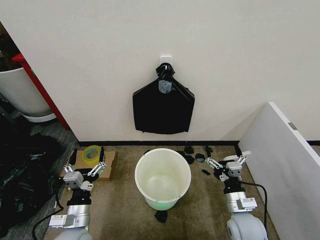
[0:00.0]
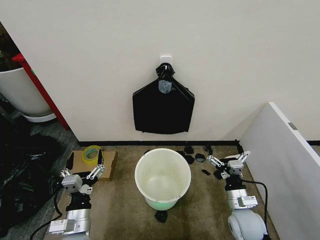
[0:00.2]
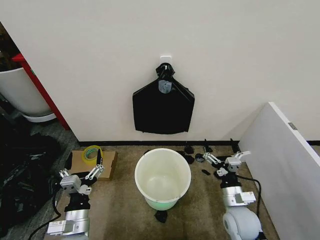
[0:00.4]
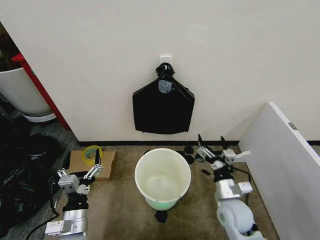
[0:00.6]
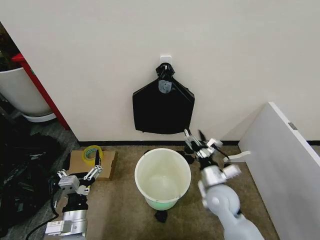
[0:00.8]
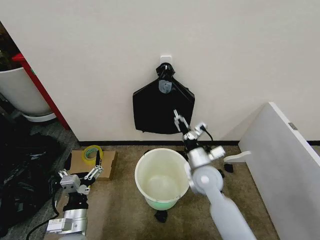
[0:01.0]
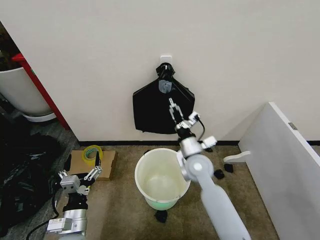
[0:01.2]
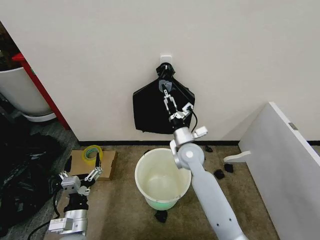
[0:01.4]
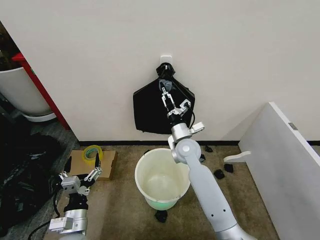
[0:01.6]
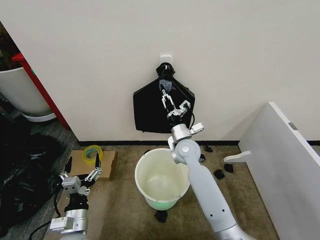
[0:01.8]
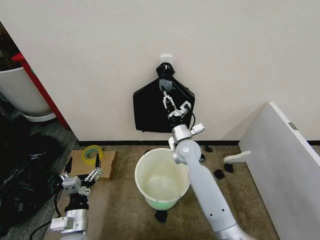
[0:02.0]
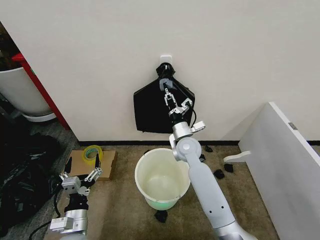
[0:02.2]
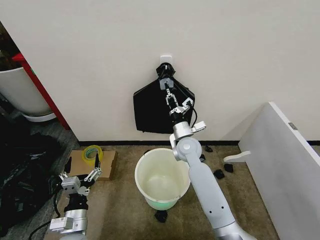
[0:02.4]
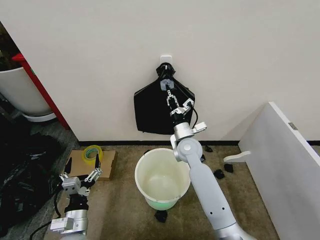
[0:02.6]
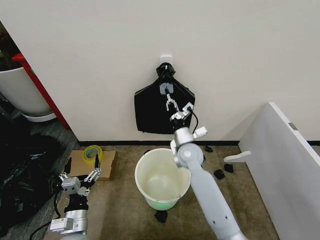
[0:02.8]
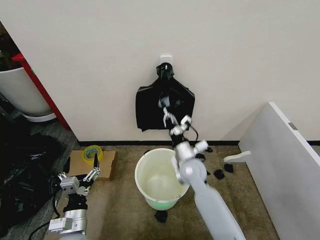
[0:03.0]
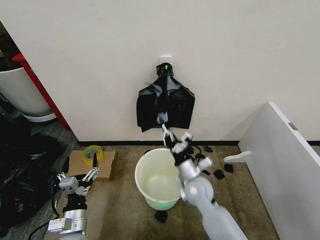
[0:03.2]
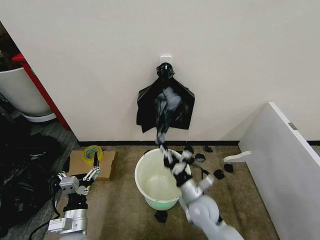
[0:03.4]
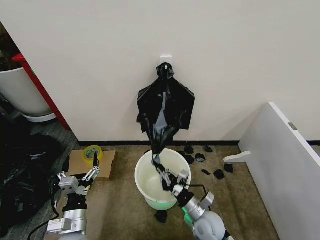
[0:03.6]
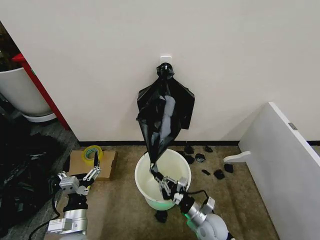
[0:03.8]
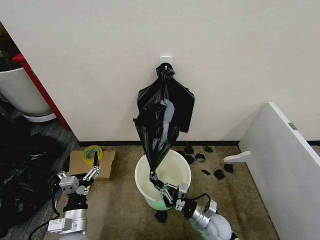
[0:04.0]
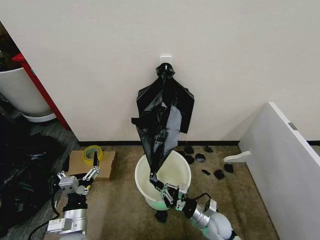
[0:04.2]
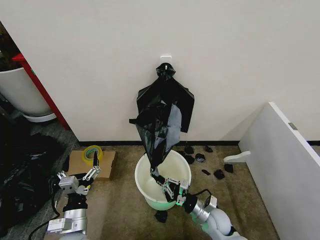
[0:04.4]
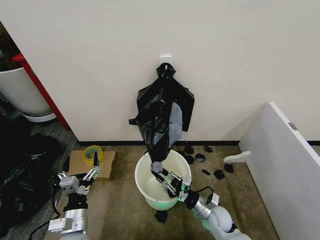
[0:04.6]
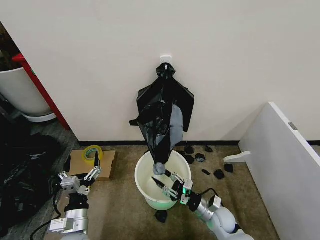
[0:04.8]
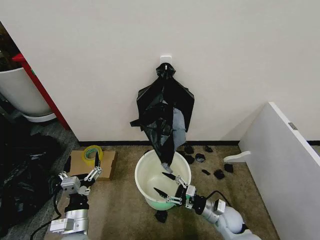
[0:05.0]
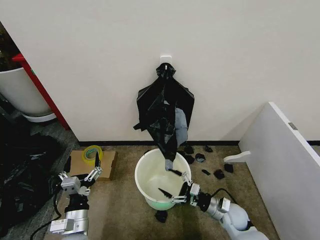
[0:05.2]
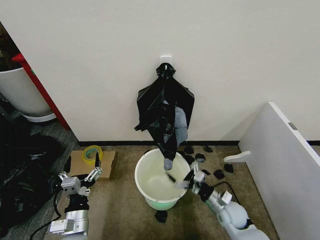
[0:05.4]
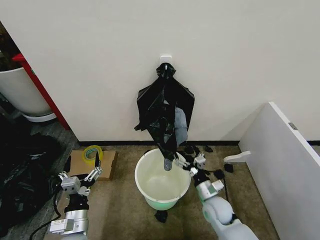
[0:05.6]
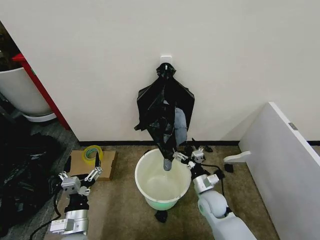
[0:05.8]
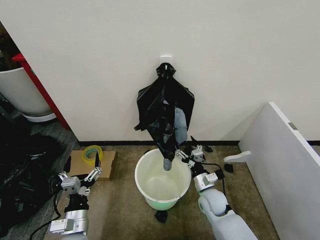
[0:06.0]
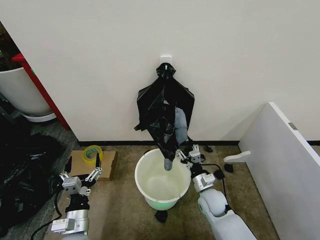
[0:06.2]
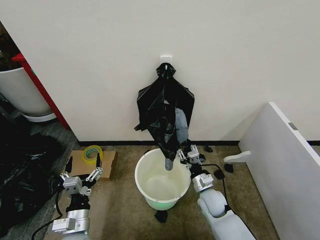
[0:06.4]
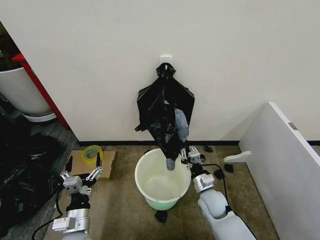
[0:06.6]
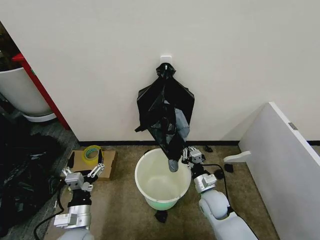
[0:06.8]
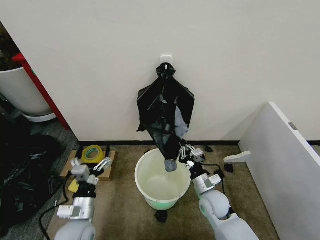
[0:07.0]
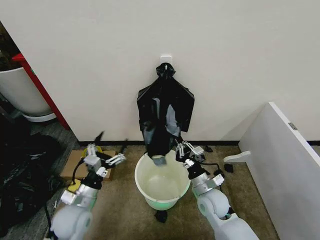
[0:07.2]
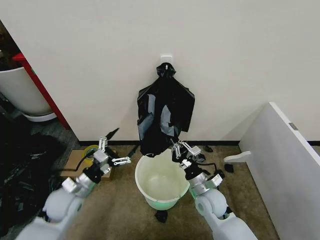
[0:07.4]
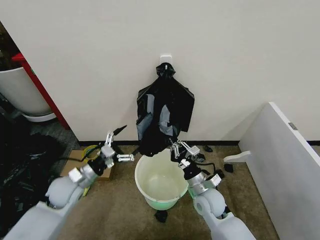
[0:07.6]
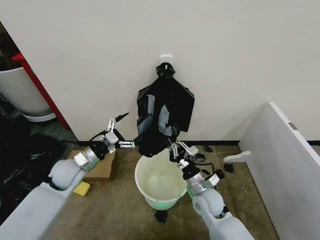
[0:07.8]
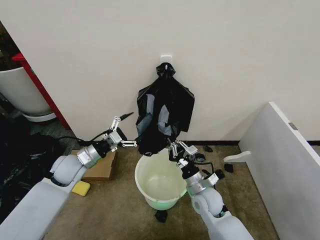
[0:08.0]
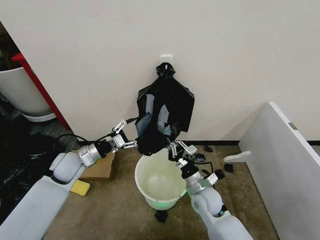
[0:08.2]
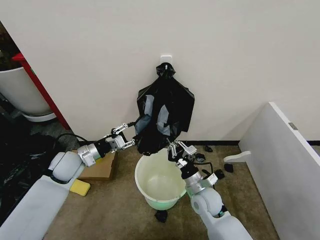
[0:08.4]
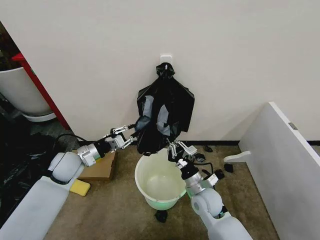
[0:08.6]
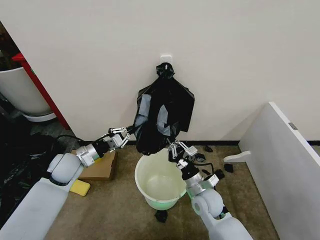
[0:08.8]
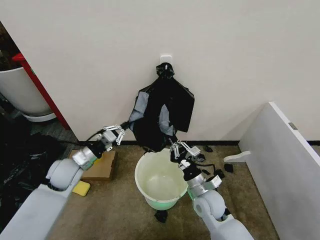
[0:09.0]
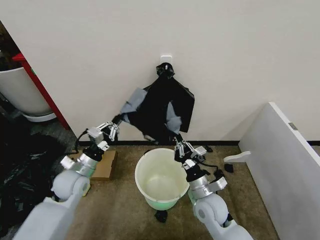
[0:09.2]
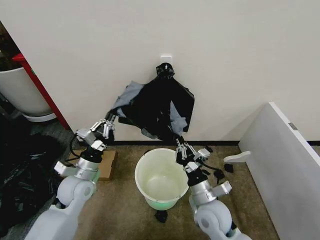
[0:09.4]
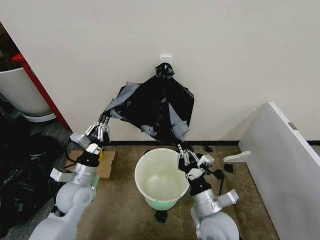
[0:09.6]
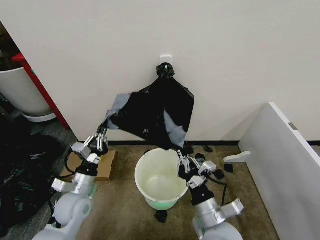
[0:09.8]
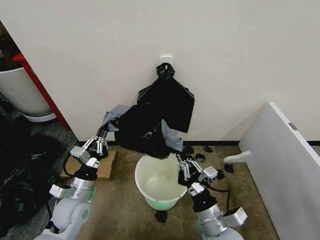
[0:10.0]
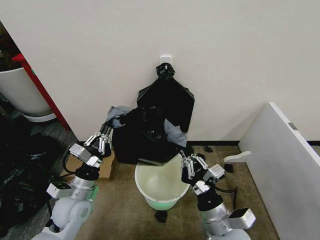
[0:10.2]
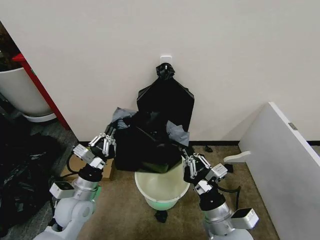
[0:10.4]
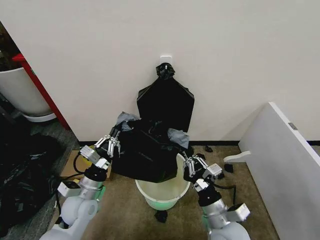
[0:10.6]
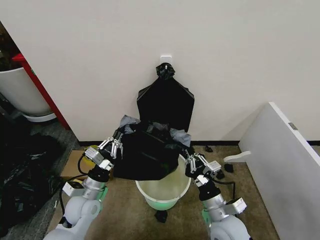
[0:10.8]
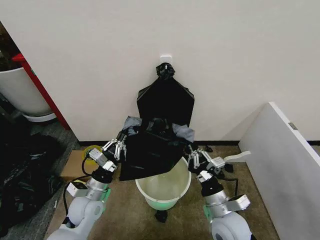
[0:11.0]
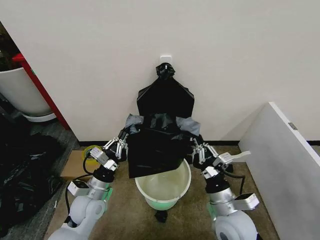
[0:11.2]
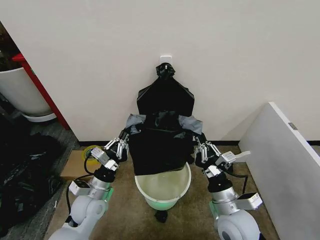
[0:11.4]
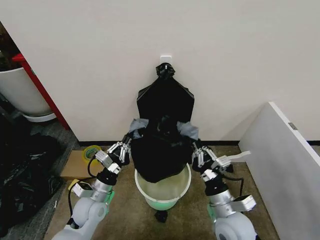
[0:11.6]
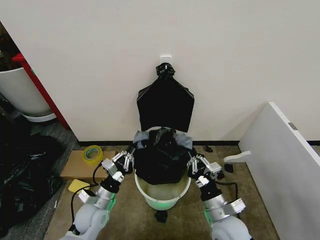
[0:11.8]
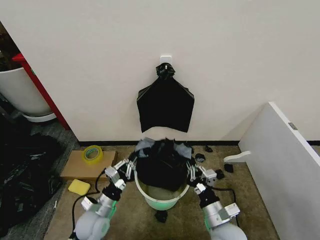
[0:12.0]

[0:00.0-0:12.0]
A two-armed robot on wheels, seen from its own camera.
Task of the whole recording: Place the garbage bag over the trash bin.
0:01.6 to 0:03.0: The right gripper goes about 5 cm backward, and closes.
0:03.0 to 0:04.4: The right gripper shifts roughly 20 cm downward, backward and to the right.
0:04.4 to 0:06.0: The right gripper is displaced forward by roughly 5 cm, goes to the right and returns, roughly 5 cm each way, and opens.
0:06.0 to 0:07.6: The right gripper travels upward by roughly 5 cm, and closes its fingers. Meanwhile the left gripper goes about 15 cm forward.
0:07.6 to 0:09.0: The left gripper changes place by roughly 5 cm, and closes up.
0:09.0 to 0:10.4: The left gripper shifts roughly 10 cm backward and to the right, while the right gripper travels backward and upward by approximately 15 cm.
0:10.4 to 0:12.0: The left gripper heads downward, covering some 10 cm. Meanwhile the right gripper moves up and down over about 10 cm, changing direction 2 times.

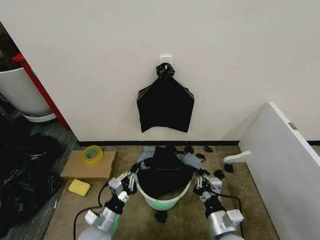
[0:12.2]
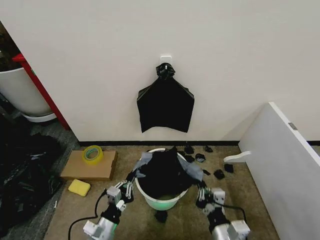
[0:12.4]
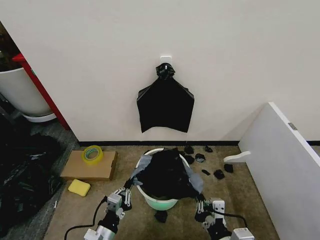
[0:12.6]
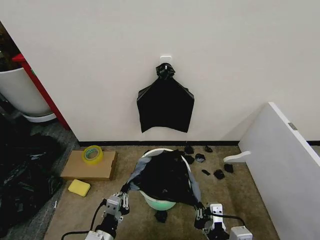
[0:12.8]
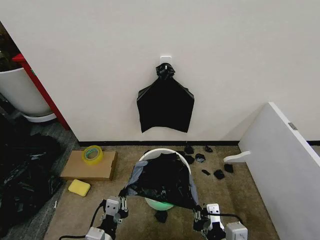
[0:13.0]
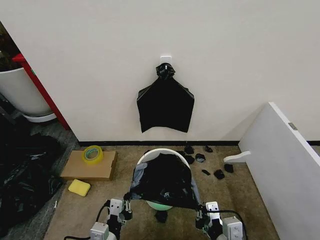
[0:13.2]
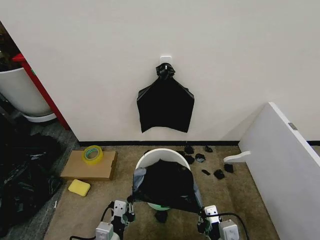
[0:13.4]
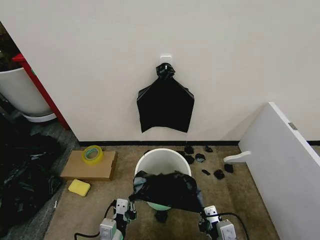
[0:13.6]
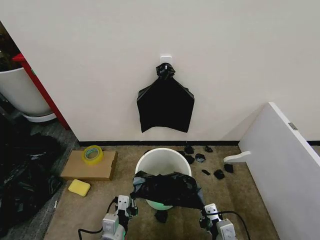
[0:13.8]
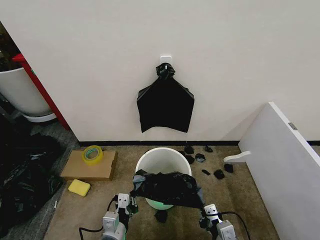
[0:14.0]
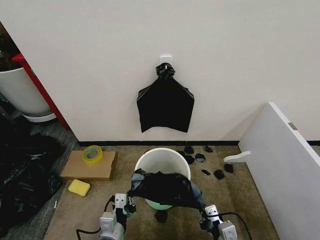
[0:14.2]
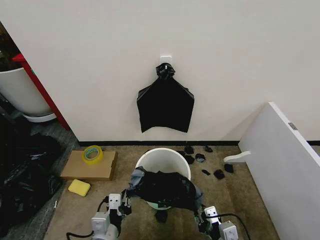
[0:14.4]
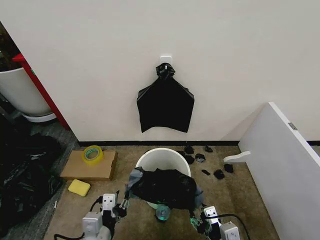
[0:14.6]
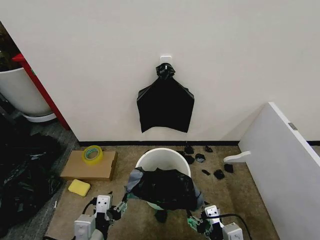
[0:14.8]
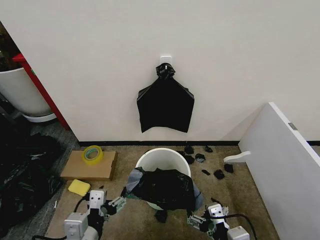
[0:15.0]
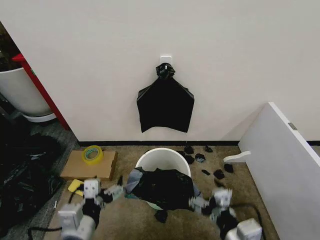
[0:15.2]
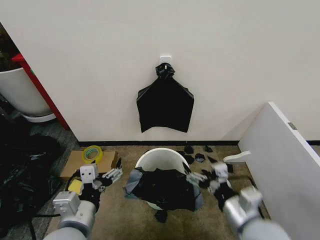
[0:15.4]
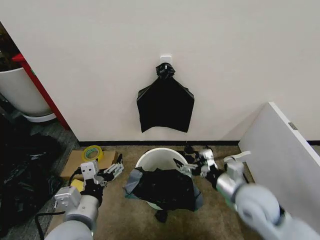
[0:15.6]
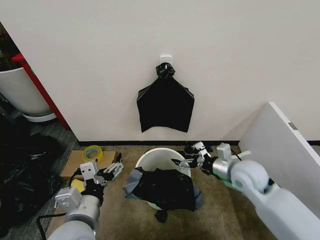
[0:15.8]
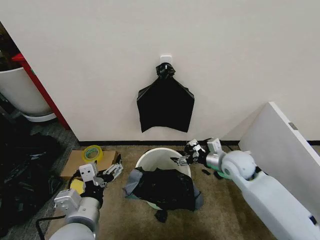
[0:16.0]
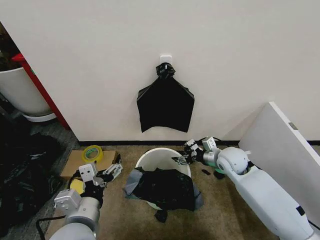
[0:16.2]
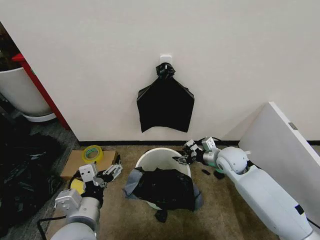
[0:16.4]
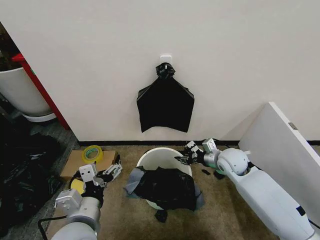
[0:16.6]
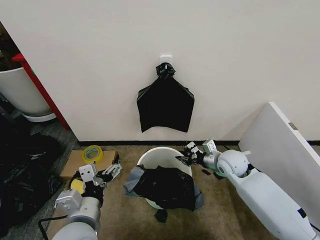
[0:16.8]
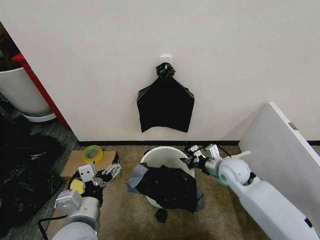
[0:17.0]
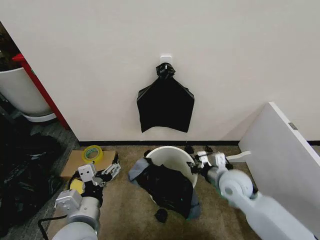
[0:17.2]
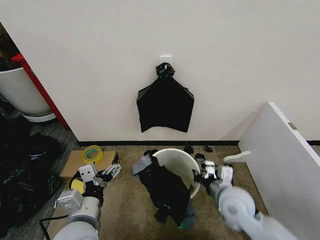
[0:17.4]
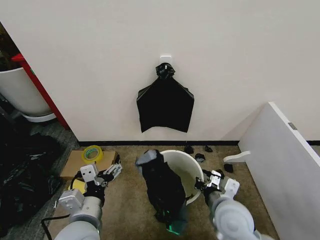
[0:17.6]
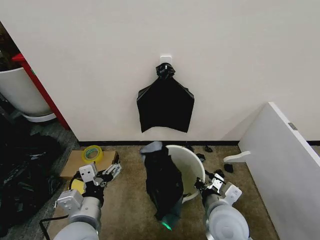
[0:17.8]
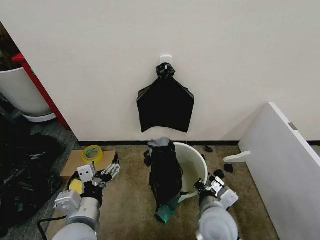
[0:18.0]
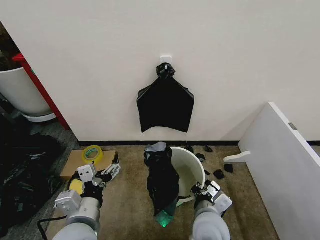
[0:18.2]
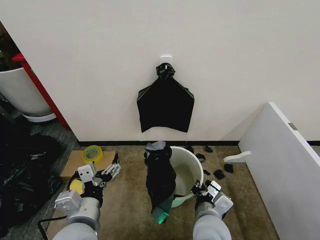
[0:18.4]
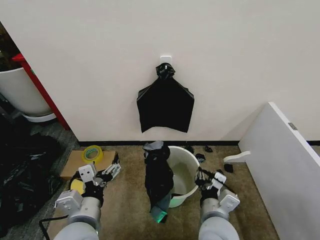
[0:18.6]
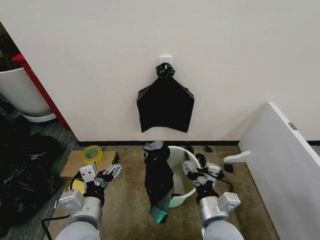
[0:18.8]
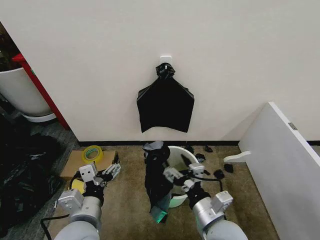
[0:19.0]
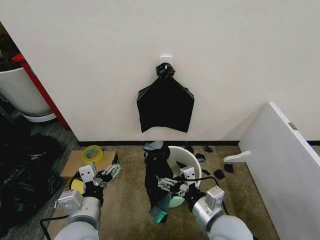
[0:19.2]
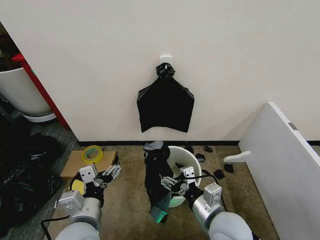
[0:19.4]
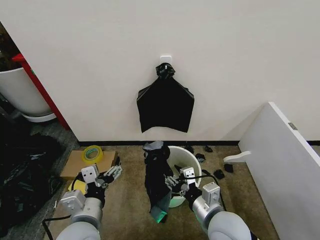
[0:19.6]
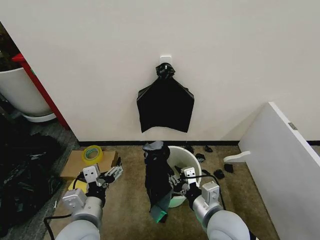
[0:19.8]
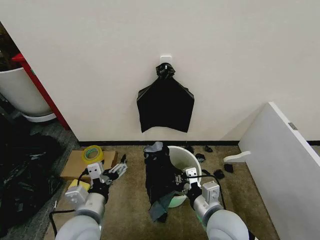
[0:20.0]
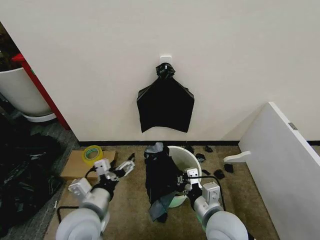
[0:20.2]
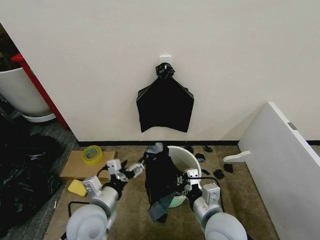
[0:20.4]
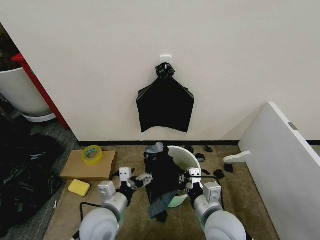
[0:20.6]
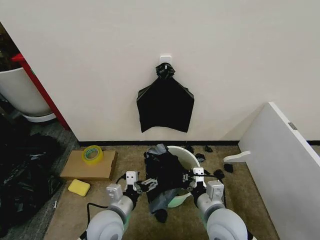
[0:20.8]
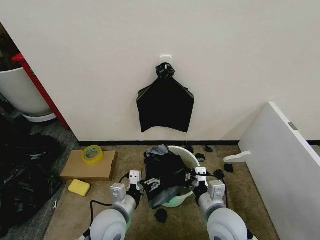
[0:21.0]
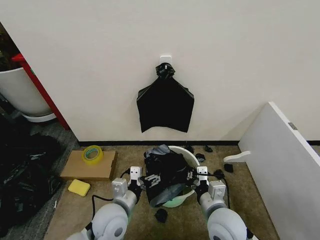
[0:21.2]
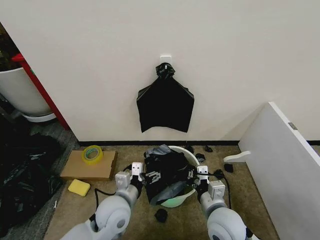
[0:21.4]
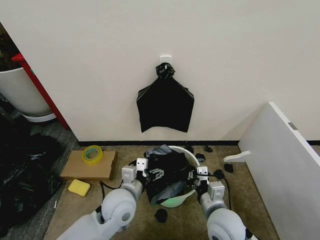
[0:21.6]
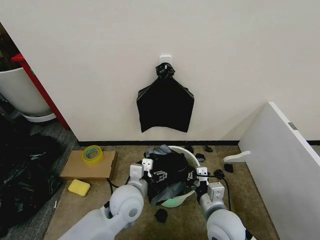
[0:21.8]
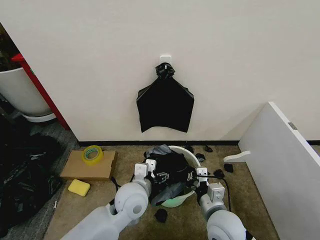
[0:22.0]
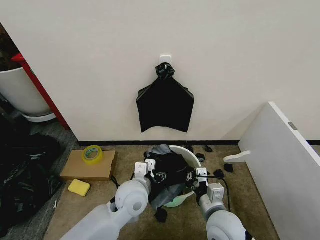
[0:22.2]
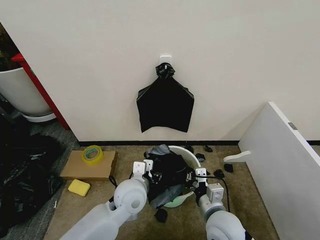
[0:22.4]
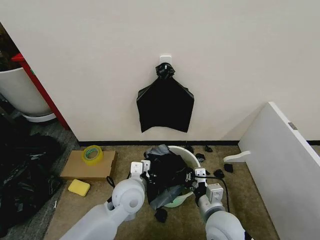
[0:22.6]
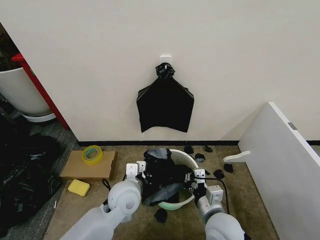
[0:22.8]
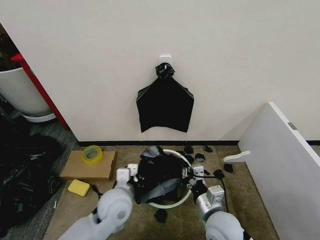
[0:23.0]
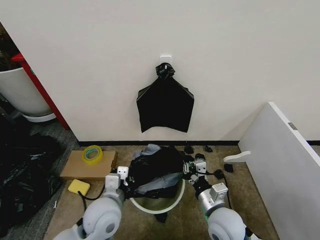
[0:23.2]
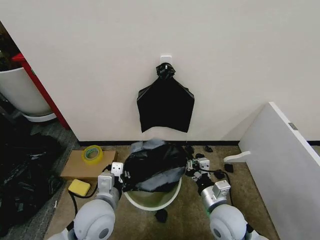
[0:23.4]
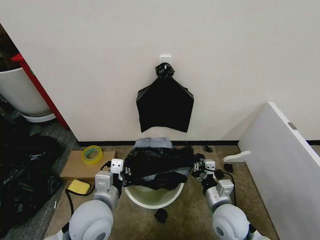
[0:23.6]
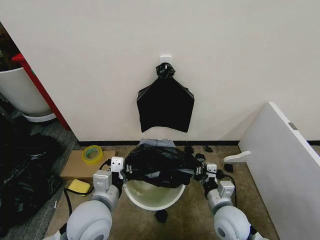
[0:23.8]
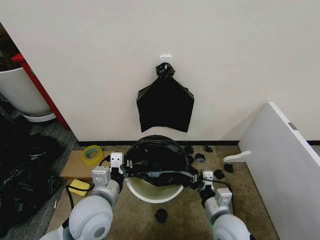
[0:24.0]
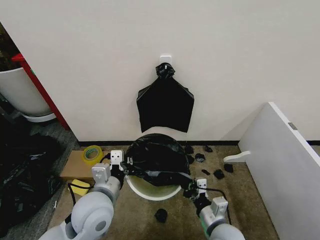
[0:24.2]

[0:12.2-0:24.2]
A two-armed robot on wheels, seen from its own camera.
Task of the whole recording: Place the garbage bag over the trash bin.
0:12.2 to 0:13.8: The left gripper moves backward, about 5 cm. Meanwhile the right gripper travels upward and back again, about 10 cm each way.
0:13.8 to 0:15.2: The grippers both shift upward by some 10 cm. The right gripper opens its fingers; the left gripper opens.
0:15.2 to 0:16.6: The right gripper goes about 30 cm forward, and closes.
0:16.6 to 0:18.2: The right gripper goes approximately 25 cm backward and to the left, and closes.
0:18.2 to 0:19.8: The right gripper opens, then closes once more.
0:19.8 to 0:21.2: The left gripper goes about 10 cm downward and forward.
0:21.2 to 0:22.6: The left gripper travels forward by about 5 cm, and closes up.
0:22.6 to 0:24.2: The left gripper heads to the left, backward and upward, covering some 10 cm. Meanwhile the right gripper shifts by about 5 cm.
